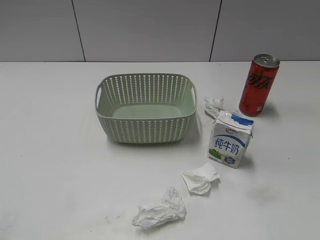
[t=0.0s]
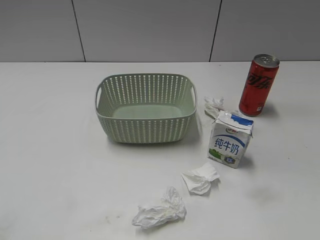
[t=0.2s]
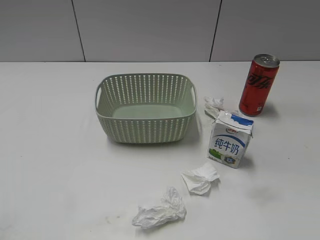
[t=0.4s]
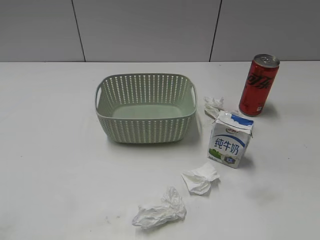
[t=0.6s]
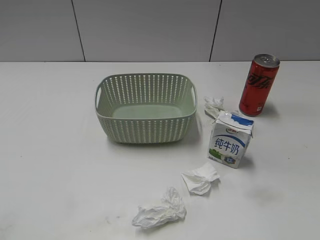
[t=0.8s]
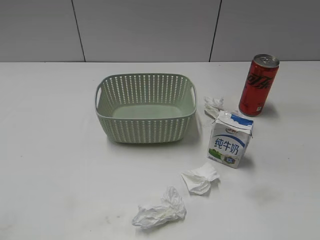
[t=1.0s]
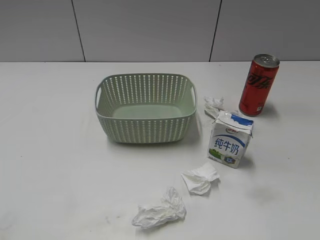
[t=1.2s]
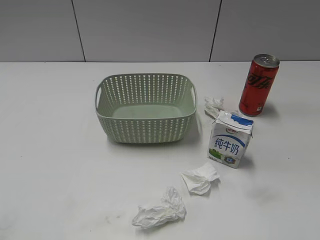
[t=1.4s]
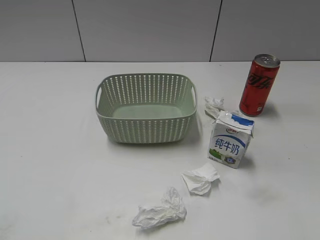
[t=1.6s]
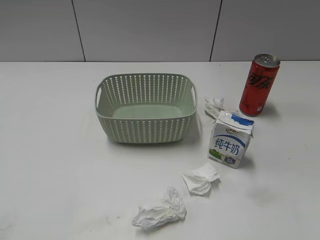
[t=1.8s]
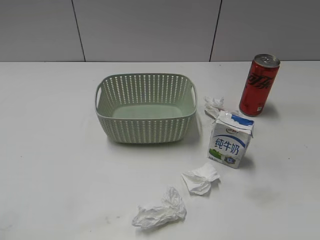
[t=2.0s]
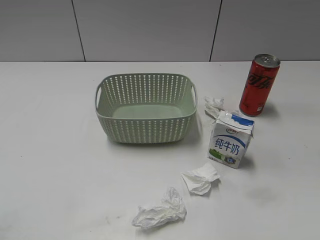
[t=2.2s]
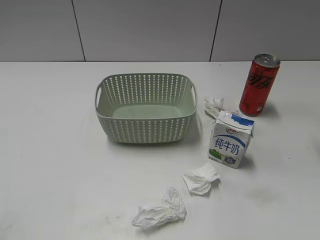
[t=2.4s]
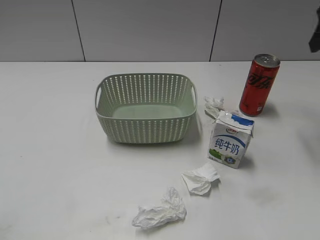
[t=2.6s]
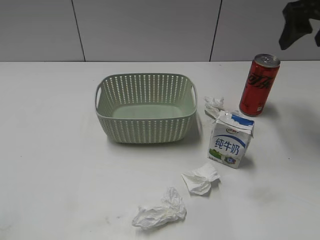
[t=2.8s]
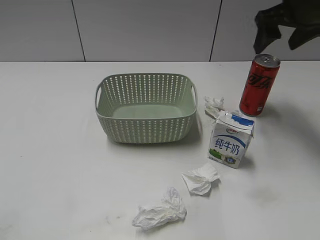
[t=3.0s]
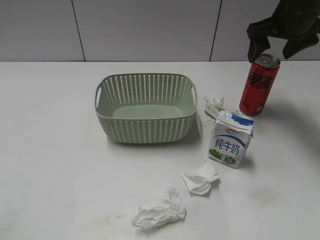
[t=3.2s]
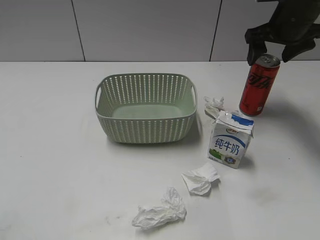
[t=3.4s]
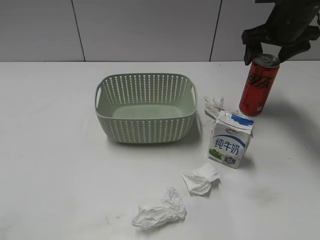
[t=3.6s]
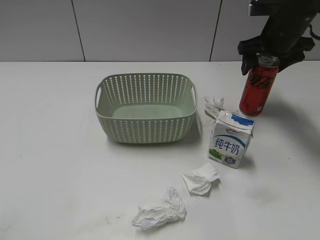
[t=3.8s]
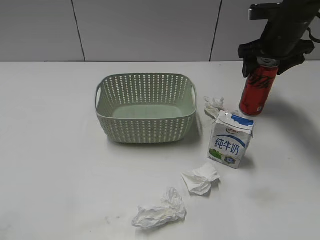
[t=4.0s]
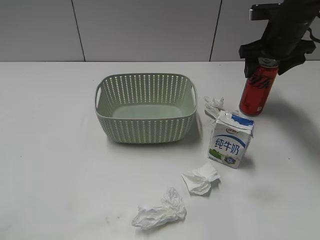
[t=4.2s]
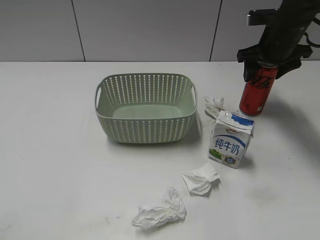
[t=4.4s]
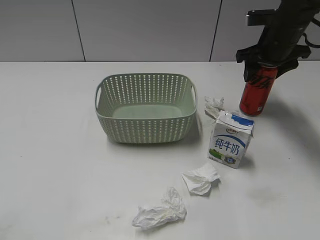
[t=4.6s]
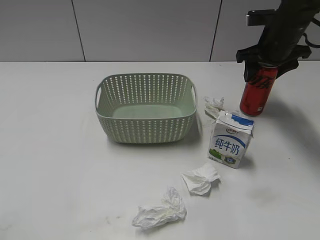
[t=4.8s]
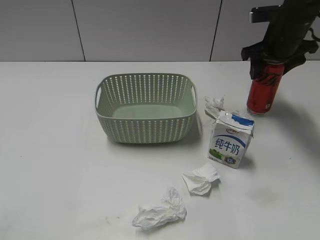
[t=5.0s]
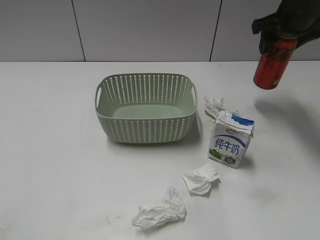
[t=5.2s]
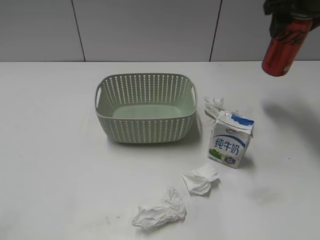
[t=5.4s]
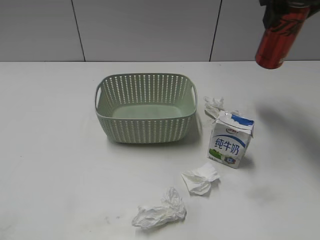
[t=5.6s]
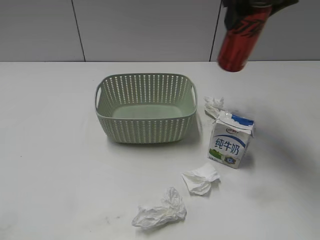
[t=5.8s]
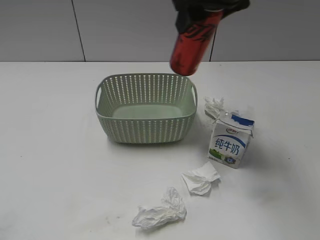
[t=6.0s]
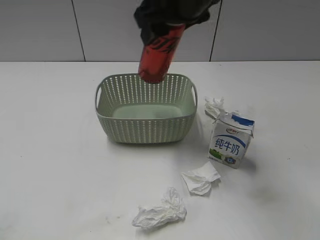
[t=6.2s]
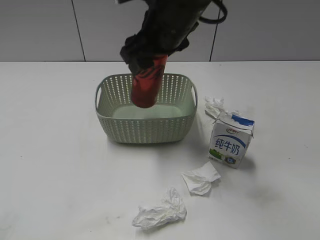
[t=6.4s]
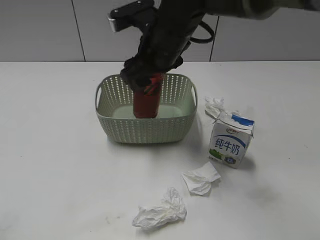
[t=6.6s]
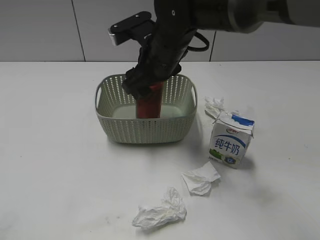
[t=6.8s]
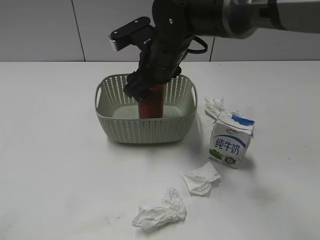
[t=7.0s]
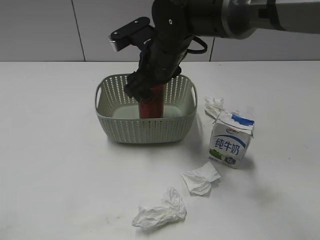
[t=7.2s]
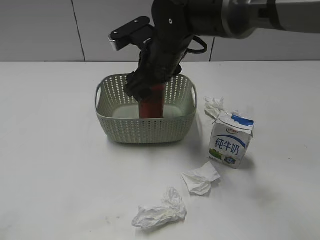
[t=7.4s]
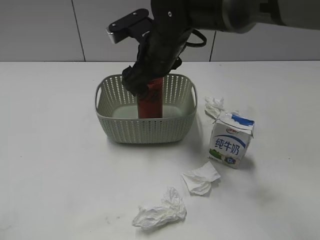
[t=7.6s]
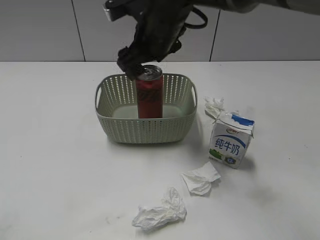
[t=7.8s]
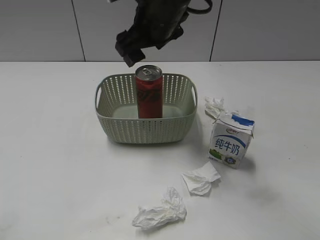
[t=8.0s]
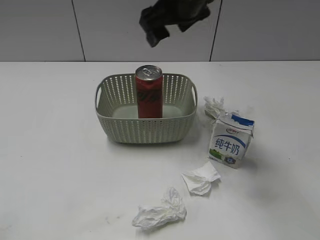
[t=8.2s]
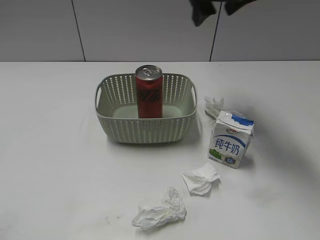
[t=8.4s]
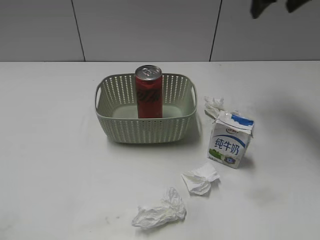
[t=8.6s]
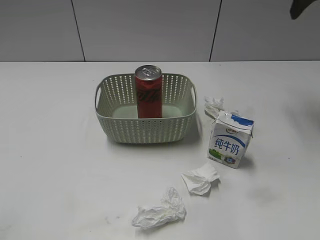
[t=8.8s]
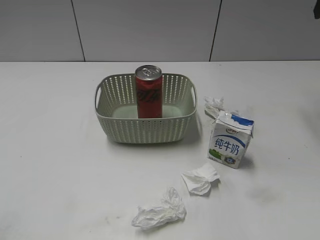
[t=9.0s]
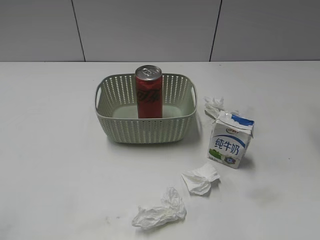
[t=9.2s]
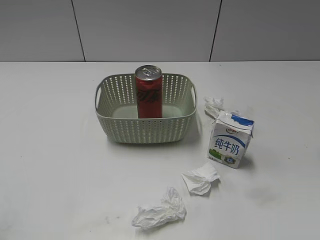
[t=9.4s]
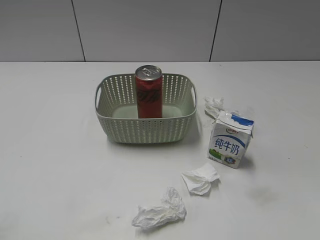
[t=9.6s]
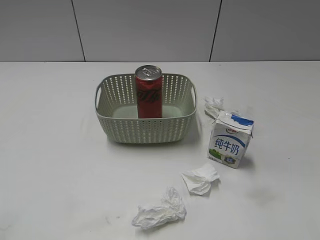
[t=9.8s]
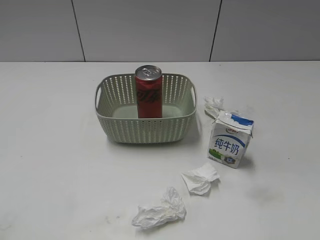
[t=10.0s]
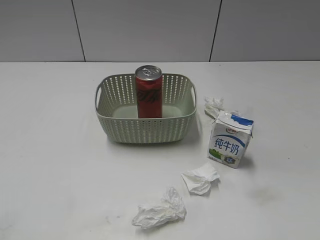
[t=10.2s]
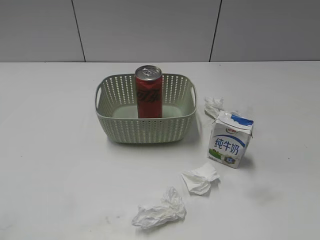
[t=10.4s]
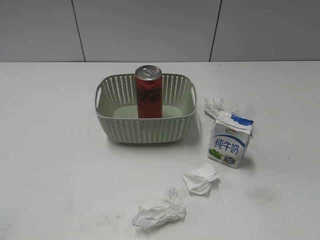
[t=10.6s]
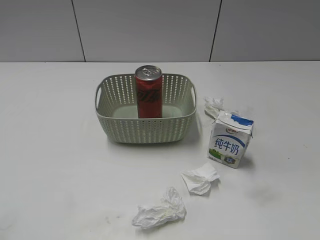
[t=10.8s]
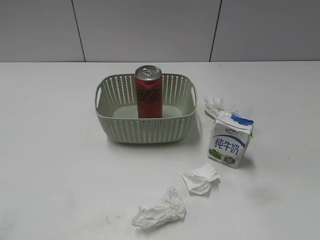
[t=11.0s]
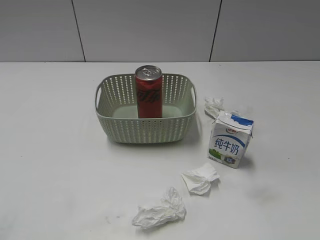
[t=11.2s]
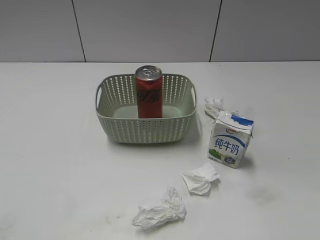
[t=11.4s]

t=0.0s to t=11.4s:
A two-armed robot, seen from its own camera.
Step, t=2.6s to t=4.6s: Grasp the cola can with right gripper.
Step, t=4.8s to t=8.0s: Place the cola can in the basket with right gripper.
t=1.4s to t=2.8s: The right gripper shifts about 30 cm forward, and closes up.
t=2.8s to t=4.2s: The right gripper is displaced downward and forward by approximately 15 cm, and opens up.
t=4.2s to t=5.6s: The right gripper shifts about 15 cm upward and backward, and closes up.
t=5.6s to t=7.2s: The right gripper moves to the left and downward, about 25 cm.
t=7.2s to t=8.6s: The right gripper shifts approximately 25 cm to the right and upward, and opens.
t=8.6s to t=10.0s: The right gripper travels backward by approximately 35 cm.
